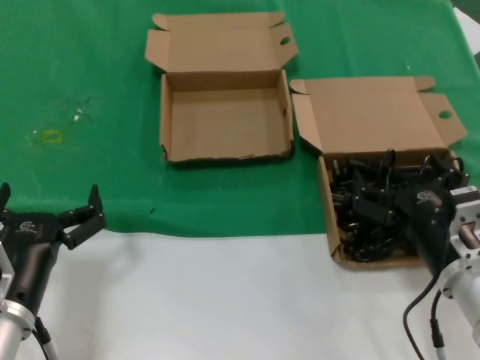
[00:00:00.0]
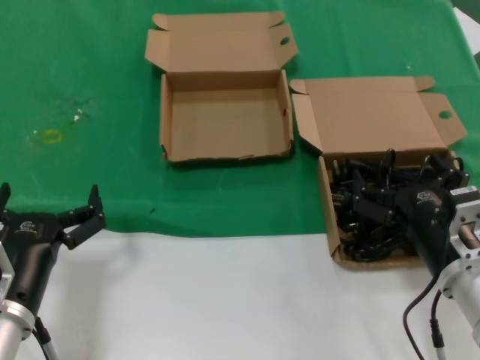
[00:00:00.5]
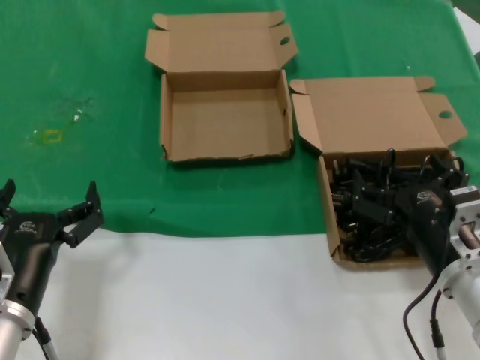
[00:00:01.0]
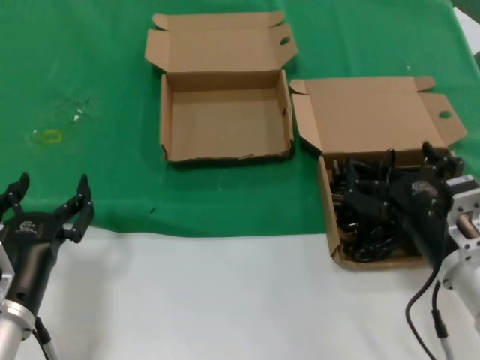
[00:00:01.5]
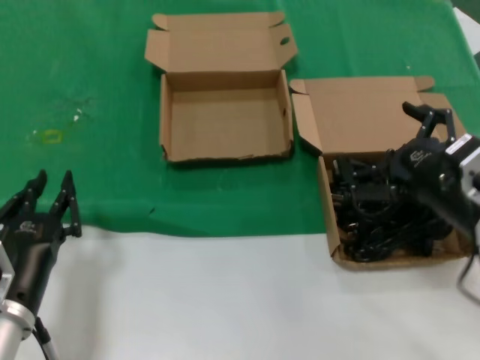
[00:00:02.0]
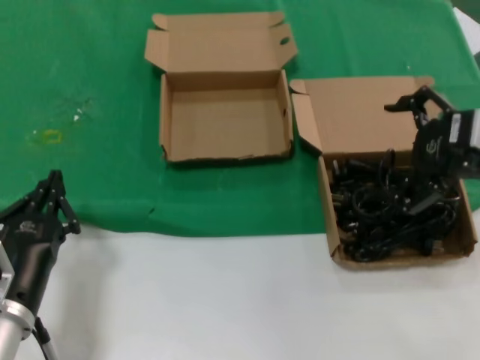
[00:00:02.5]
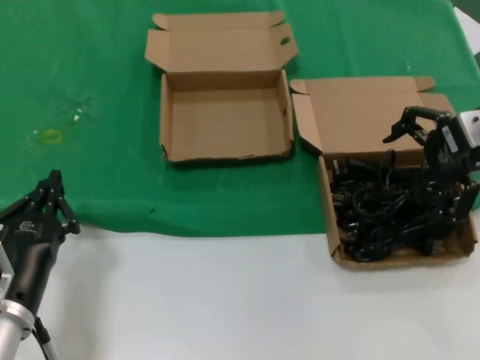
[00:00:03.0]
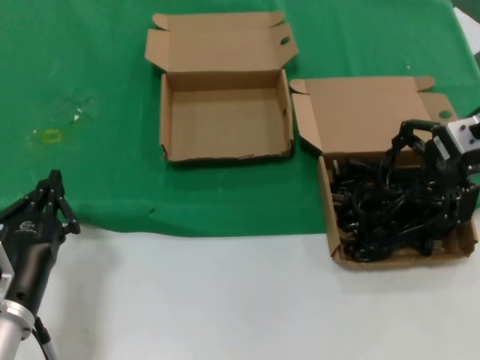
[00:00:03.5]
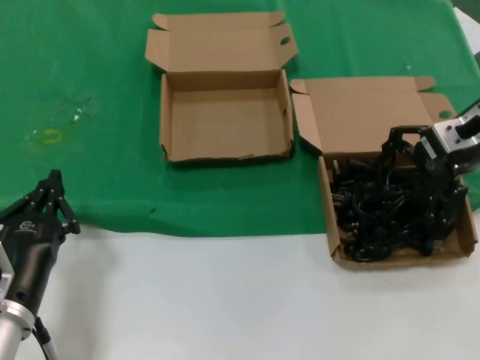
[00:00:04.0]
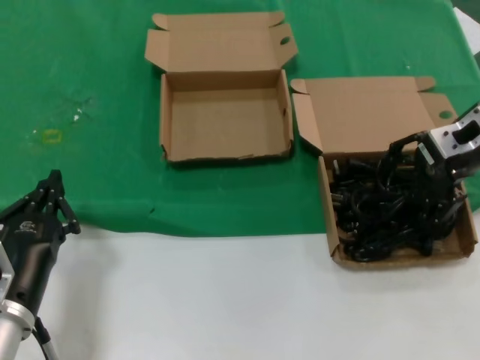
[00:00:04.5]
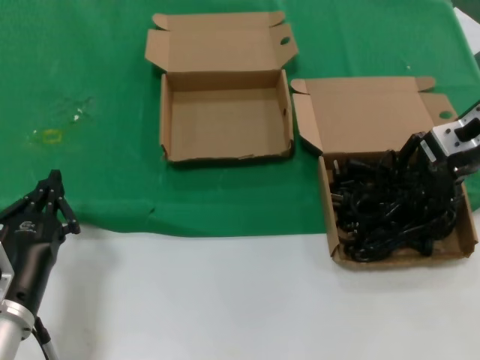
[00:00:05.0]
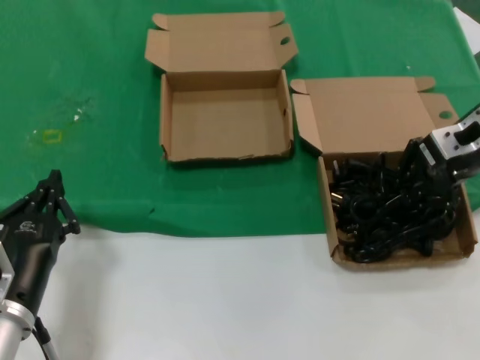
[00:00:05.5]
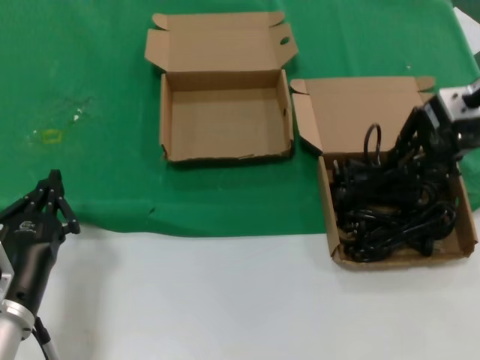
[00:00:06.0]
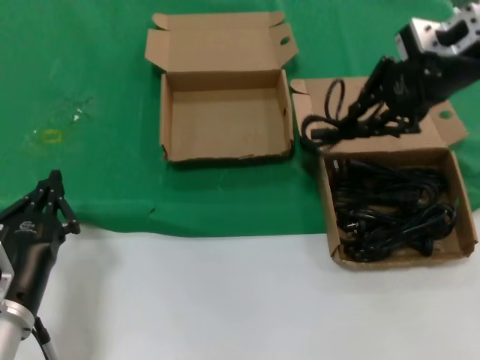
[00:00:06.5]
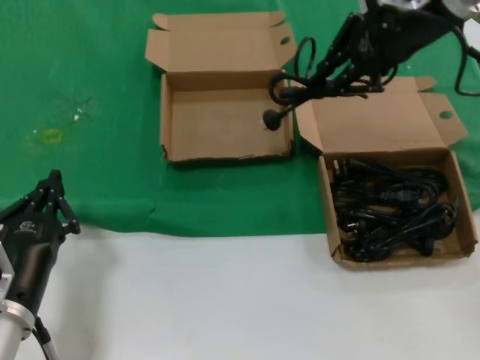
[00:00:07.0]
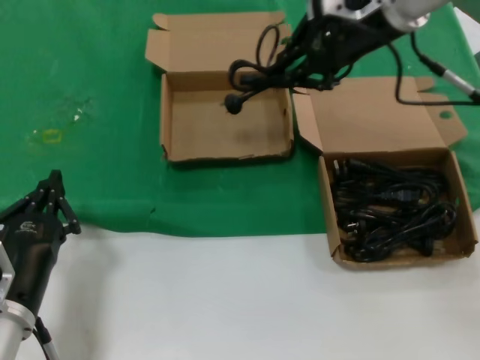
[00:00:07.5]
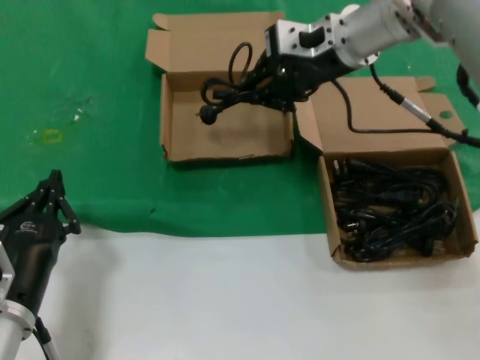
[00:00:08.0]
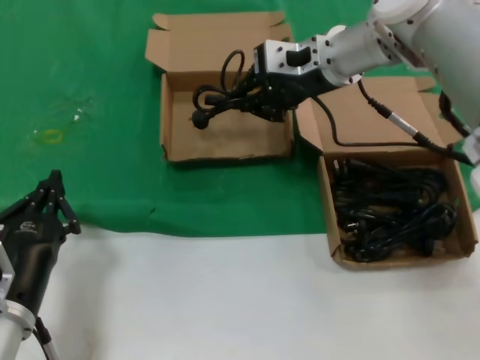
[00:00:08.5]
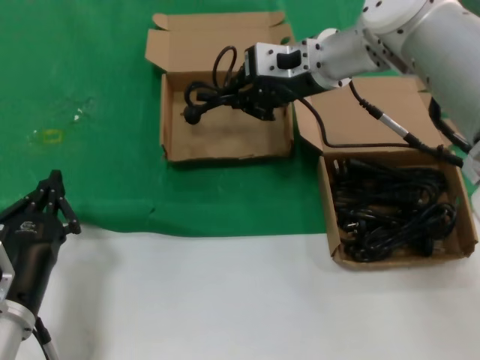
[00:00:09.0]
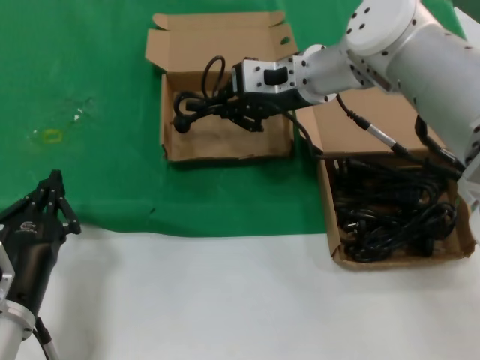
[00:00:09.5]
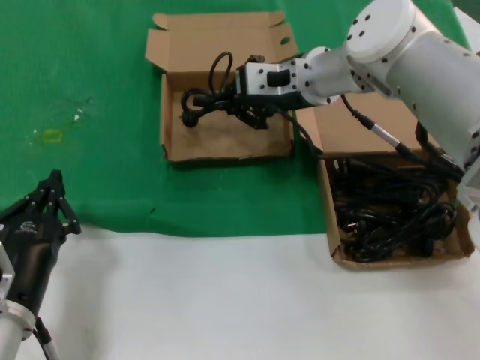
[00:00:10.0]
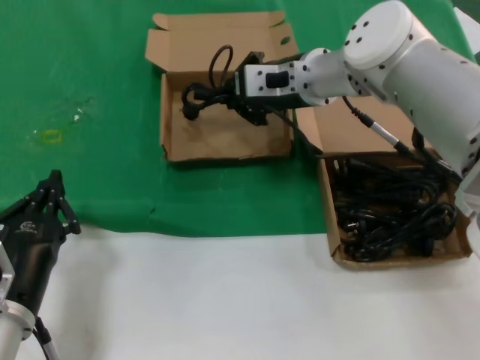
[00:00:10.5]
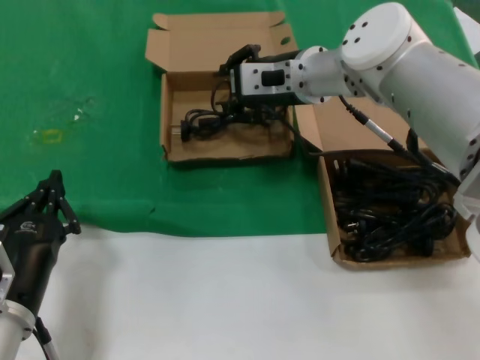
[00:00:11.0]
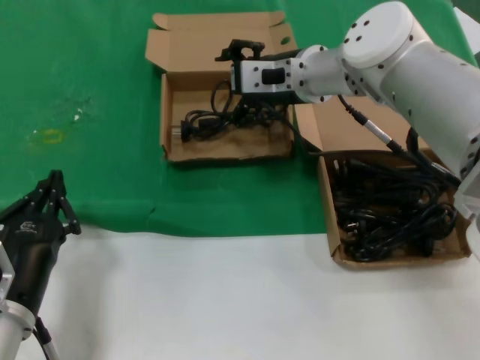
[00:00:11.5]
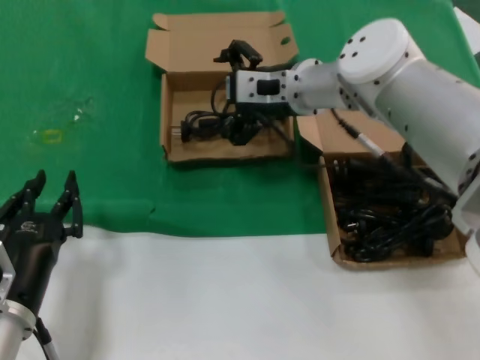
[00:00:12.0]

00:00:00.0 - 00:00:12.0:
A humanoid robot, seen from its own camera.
Task of the whole recording: take the parts from the box containing them and put them into an empty box.
Step, 00:00:00.0 - 00:00:05.0: Grasp the data cable.
Step, 00:00:05.5 - 00:00:11.0: Place the data cable in the another box.
00:00:00.0 - 00:00:02.0: The right hand is displaced upward by approximately 10 cm.
00:00:02.0 - 00:00:04.0: The right hand is displaced forward and upward by roughly 20 cm.
00:00:04.0 - 00:00:06.0: The hands stay close to where they were, moving slightly.
00:00:06.0 - 00:00:08.0: The right hand moves to the left and forward, roughly 20 cm.
00:00:08.0 - 00:00:10.0: The right hand travels downward by approximately 5 cm.
00:00:10.0 - 00:00:12.0: There are only small adjustments of the hands.

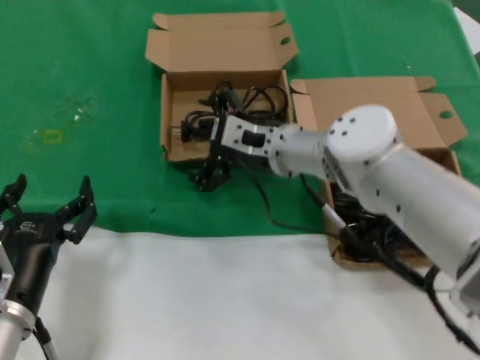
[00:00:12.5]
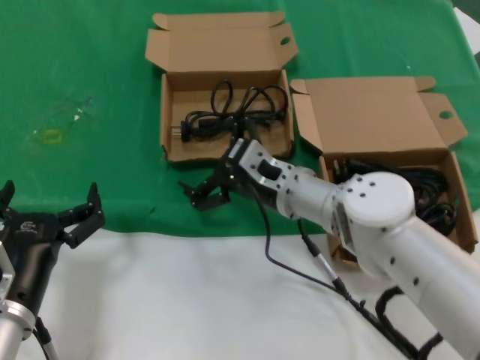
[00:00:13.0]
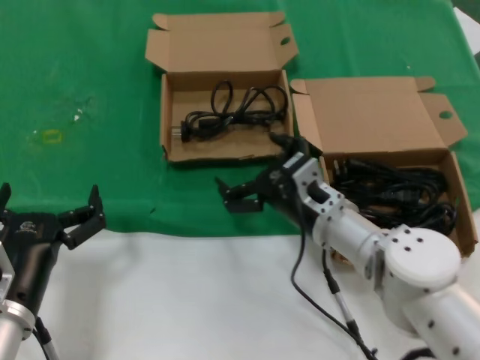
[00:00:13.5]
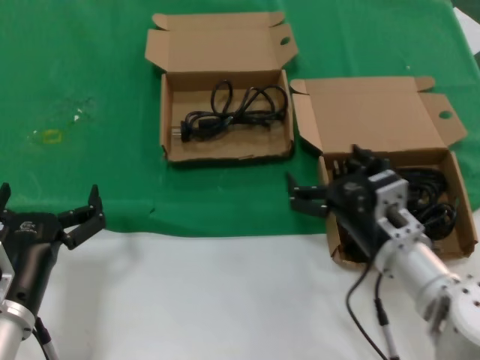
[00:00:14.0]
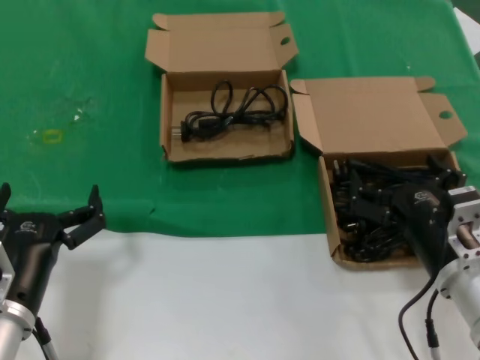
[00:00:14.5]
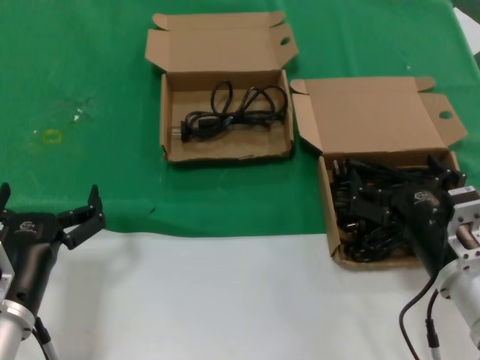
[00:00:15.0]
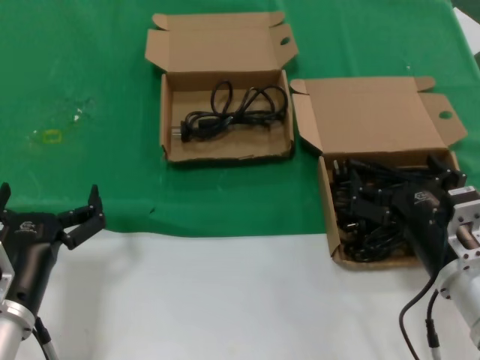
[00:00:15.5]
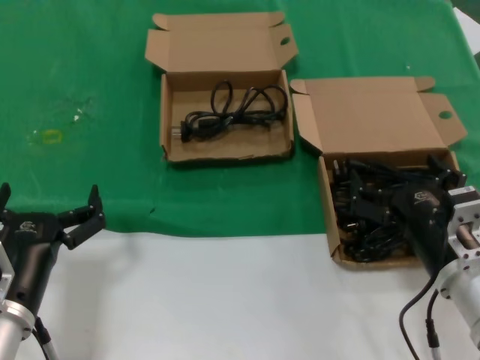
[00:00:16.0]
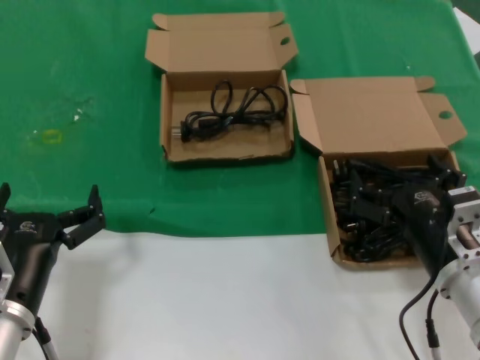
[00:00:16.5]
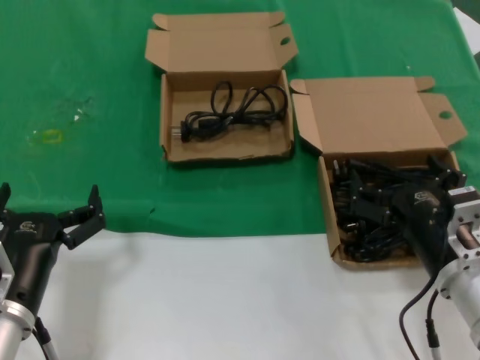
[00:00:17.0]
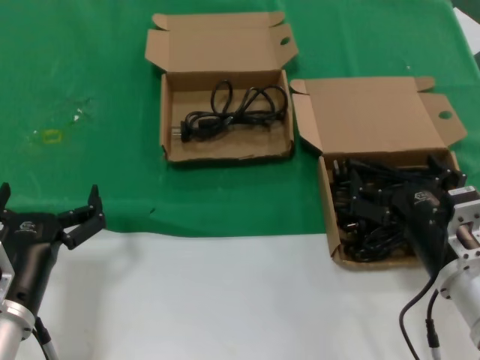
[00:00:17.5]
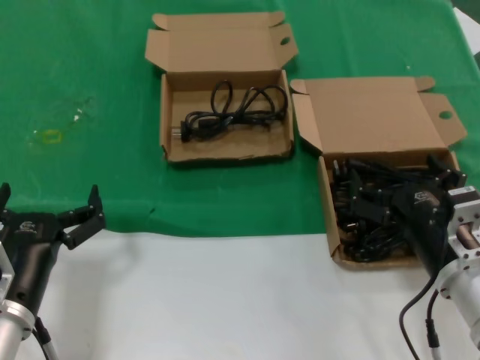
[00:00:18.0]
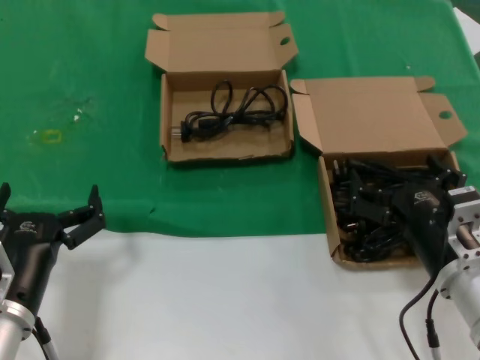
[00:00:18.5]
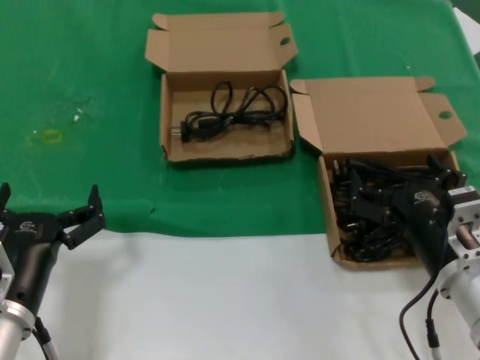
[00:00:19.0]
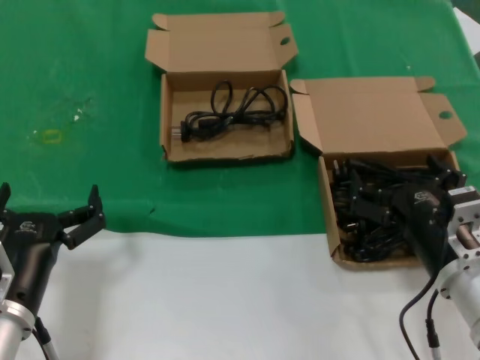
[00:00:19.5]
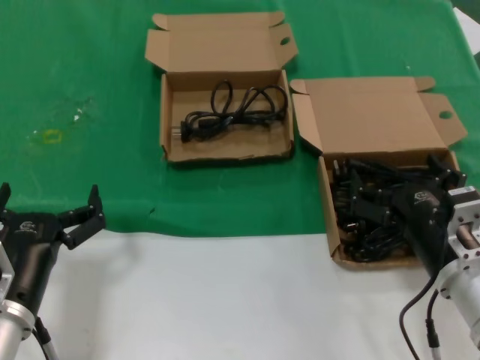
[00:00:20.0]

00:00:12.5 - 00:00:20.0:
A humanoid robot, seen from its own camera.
Task of the whole recording: take the parts from the box containing them and put them into an empty box.
00:00:12.5 - 00:00:14.5: The right hand is displaced backward, to the right and downward by roughly 30 cm.
00:00:14.5 - 00:00:20.0: Both hands stay about where they are.

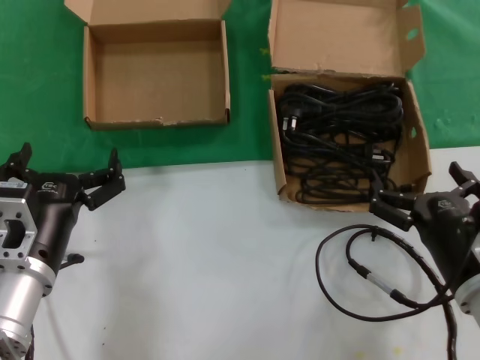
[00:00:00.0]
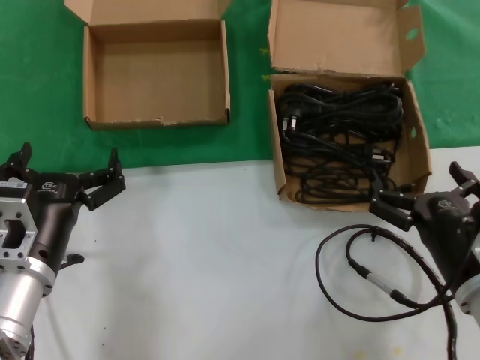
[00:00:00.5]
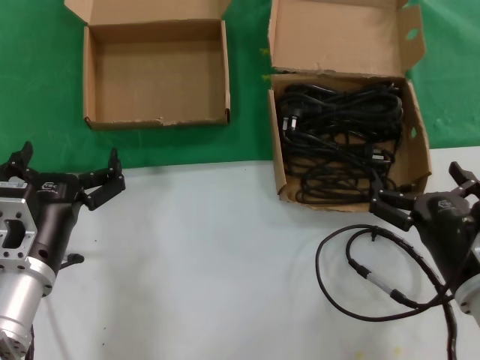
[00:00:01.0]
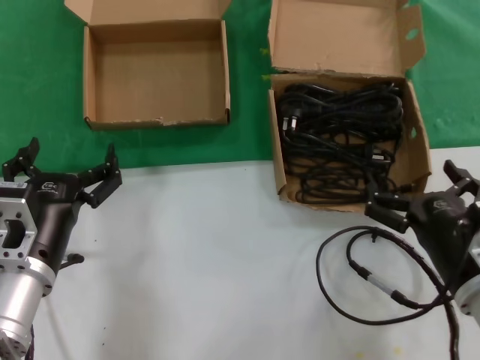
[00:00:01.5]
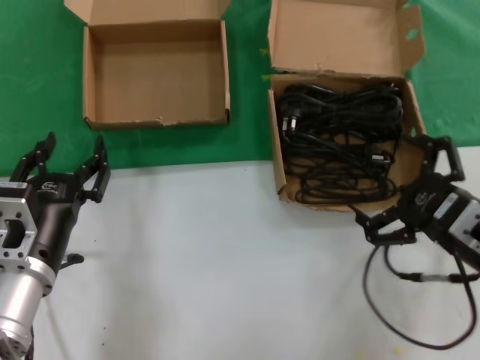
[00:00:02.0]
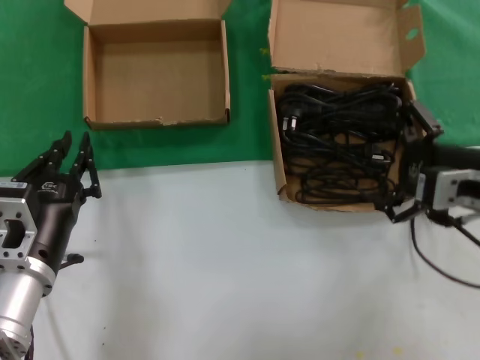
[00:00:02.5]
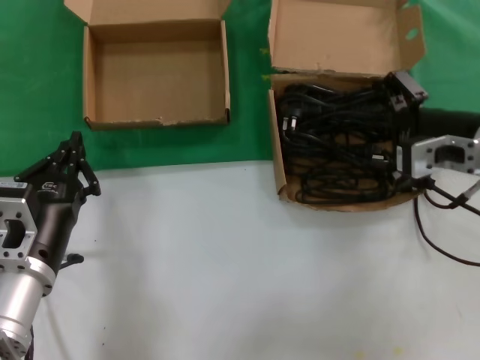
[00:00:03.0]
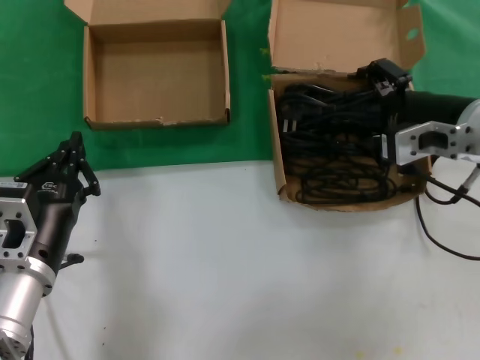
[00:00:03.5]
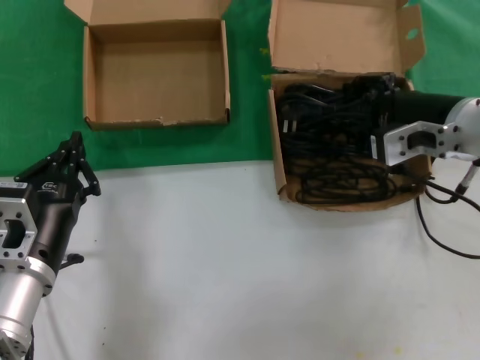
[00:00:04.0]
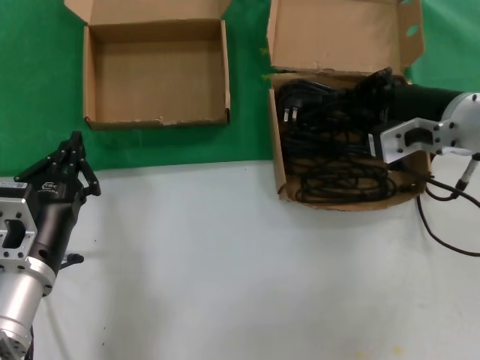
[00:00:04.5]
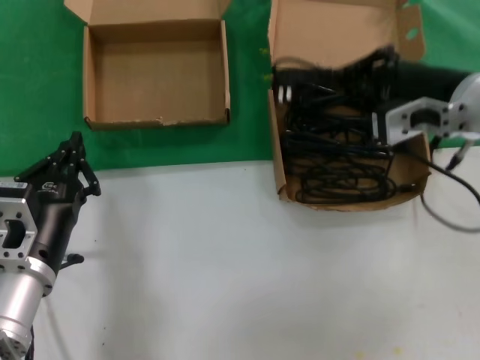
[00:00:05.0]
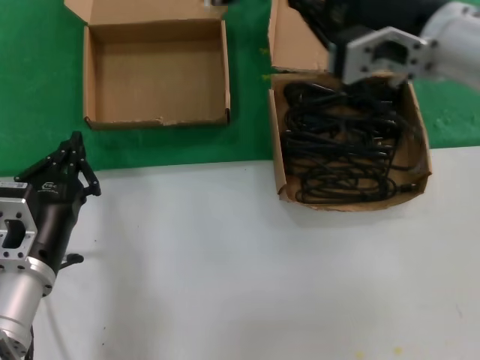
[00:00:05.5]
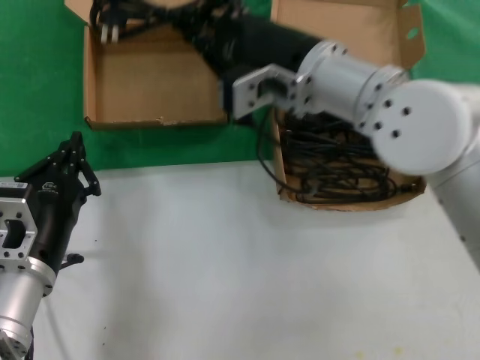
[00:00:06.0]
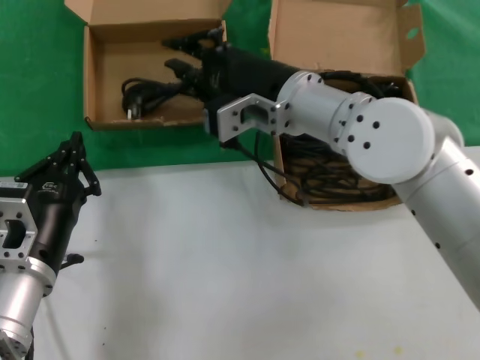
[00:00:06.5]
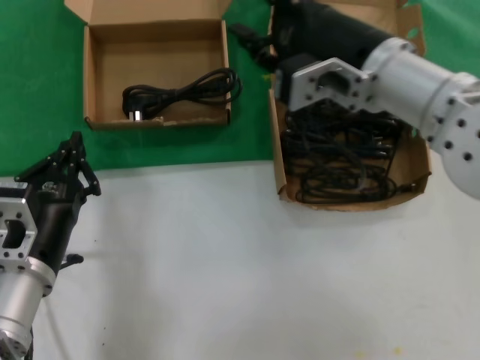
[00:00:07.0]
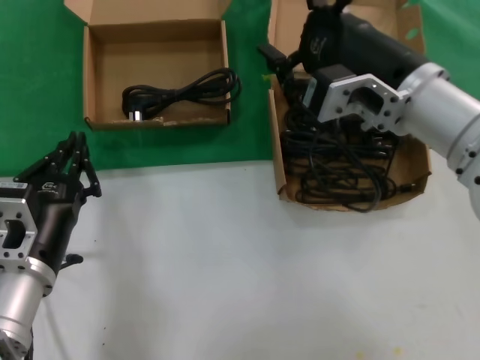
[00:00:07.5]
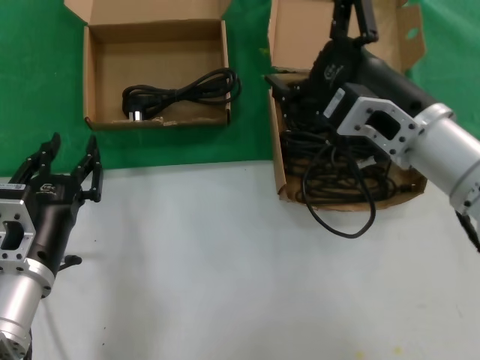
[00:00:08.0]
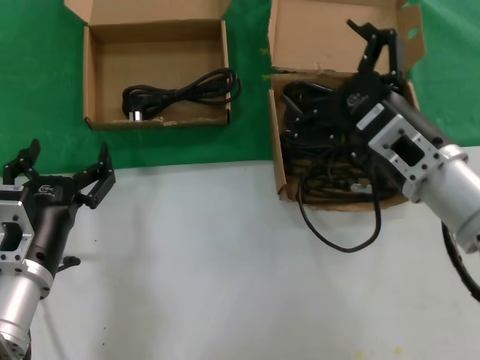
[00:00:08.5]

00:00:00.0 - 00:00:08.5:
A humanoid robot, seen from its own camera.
Task of the whole recording: take the parts from the box containing them and put them into an empty box.
Step, 00:00:00.0 - 00:00:04.0: Grasp the data cable.
Step, 00:00:04.5 - 00:00:06.5: Place the data cable in the another box.
00:00:00.0 - 00:00:02.0: The right hand goes roughly 5 cm upward.
00:00:02.0 - 00:00:04.0: The right hand heads forward and upward, covering some 15 cm.
00:00:04.0 - 00:00:06.5: The right hand shifts about 20 cm to the left.
00:00:06.5 - 00:00:08.5: The right hand moves to the right, backward and downward, roughly 15 cm.